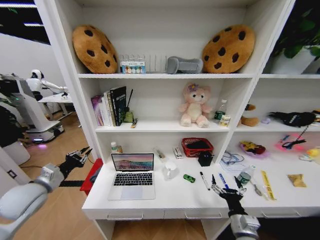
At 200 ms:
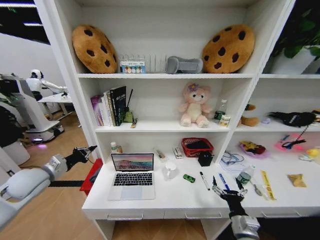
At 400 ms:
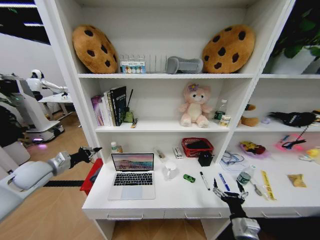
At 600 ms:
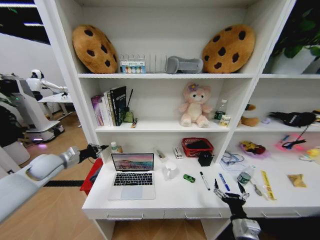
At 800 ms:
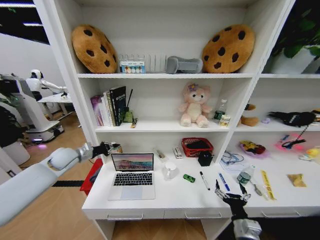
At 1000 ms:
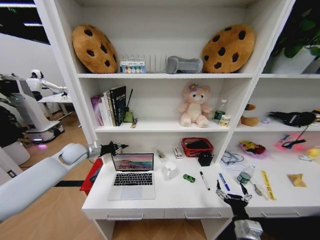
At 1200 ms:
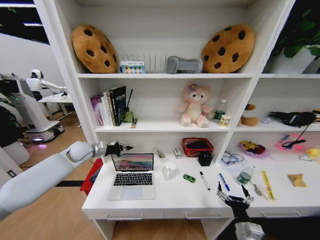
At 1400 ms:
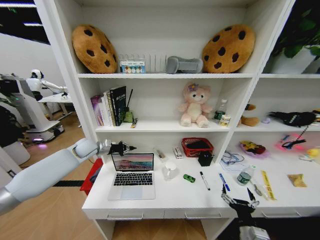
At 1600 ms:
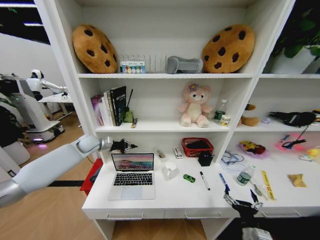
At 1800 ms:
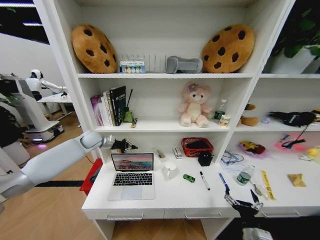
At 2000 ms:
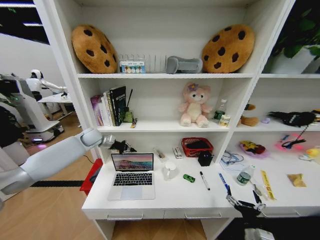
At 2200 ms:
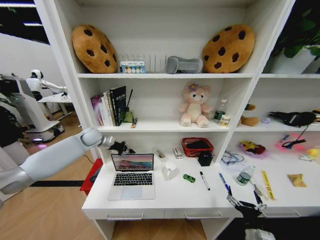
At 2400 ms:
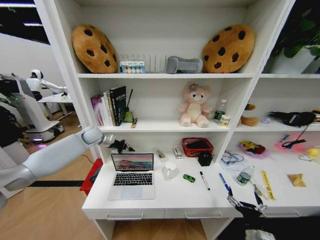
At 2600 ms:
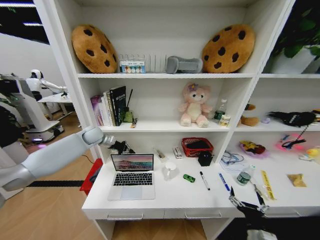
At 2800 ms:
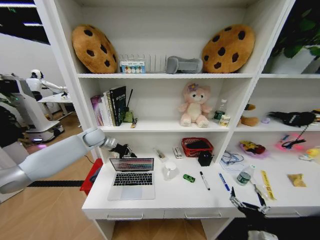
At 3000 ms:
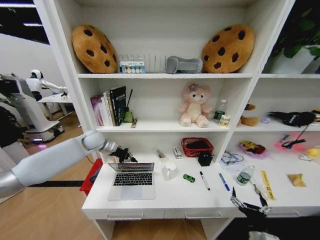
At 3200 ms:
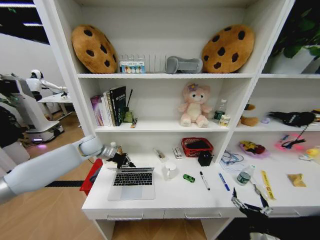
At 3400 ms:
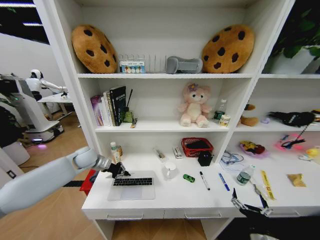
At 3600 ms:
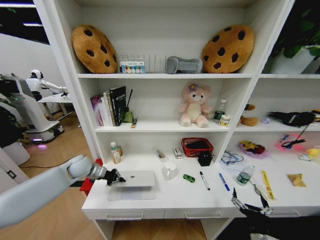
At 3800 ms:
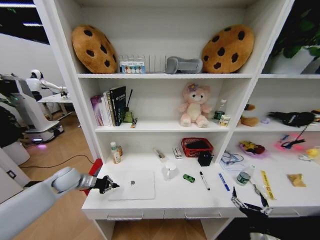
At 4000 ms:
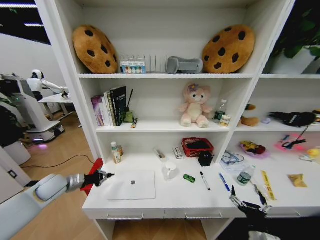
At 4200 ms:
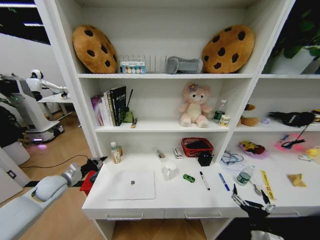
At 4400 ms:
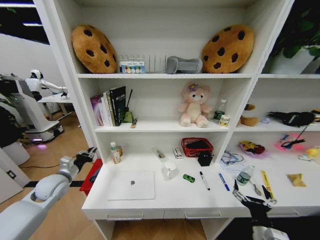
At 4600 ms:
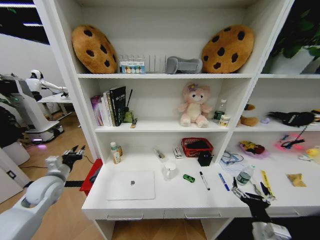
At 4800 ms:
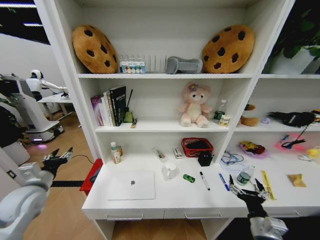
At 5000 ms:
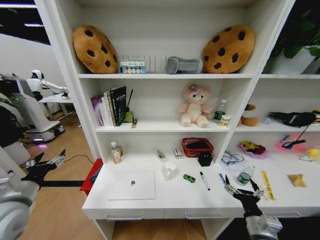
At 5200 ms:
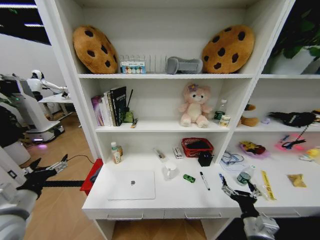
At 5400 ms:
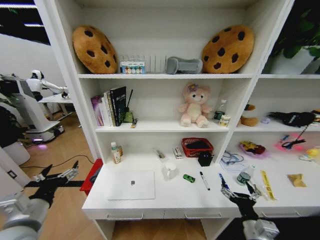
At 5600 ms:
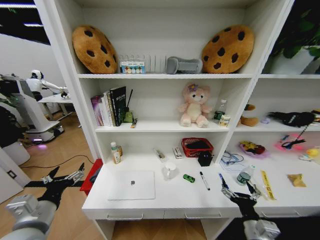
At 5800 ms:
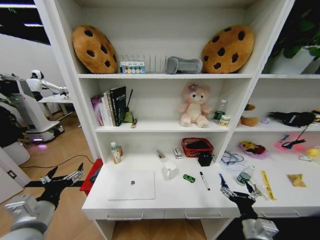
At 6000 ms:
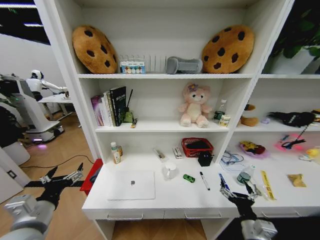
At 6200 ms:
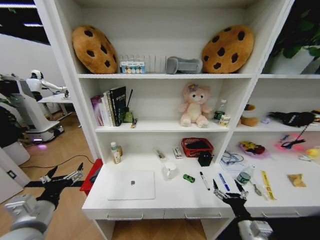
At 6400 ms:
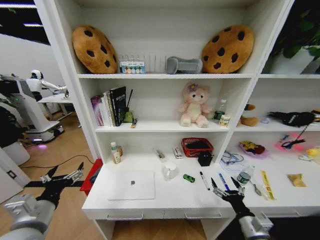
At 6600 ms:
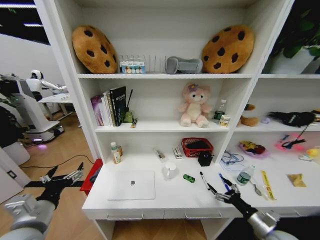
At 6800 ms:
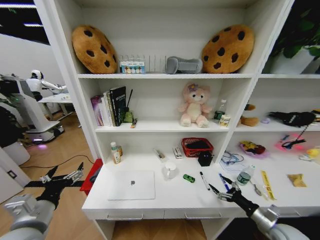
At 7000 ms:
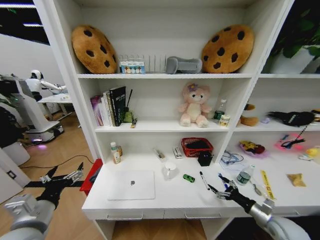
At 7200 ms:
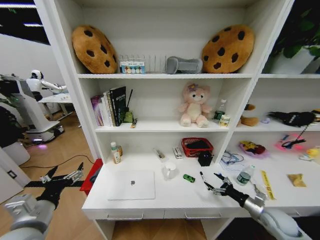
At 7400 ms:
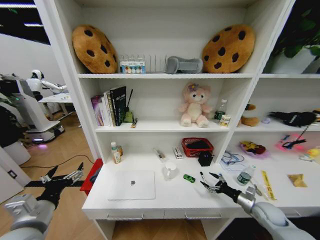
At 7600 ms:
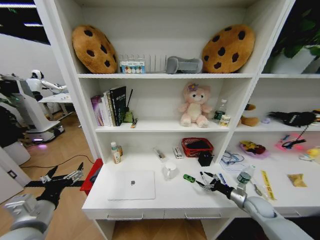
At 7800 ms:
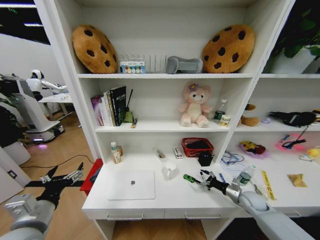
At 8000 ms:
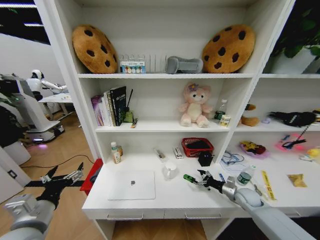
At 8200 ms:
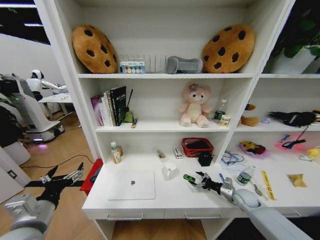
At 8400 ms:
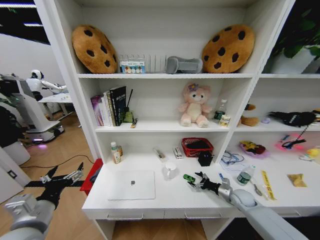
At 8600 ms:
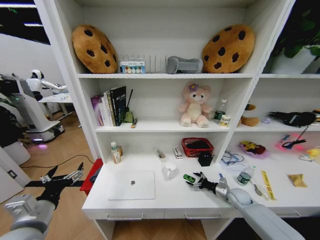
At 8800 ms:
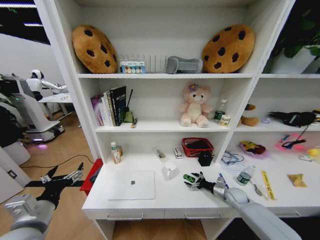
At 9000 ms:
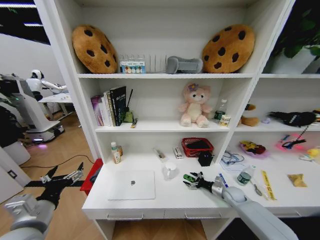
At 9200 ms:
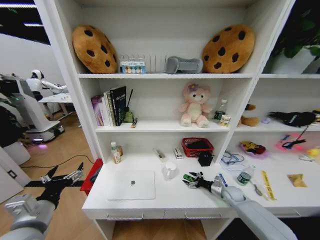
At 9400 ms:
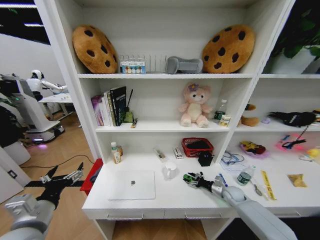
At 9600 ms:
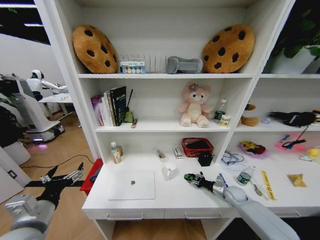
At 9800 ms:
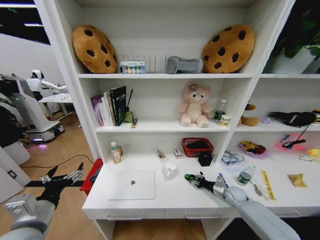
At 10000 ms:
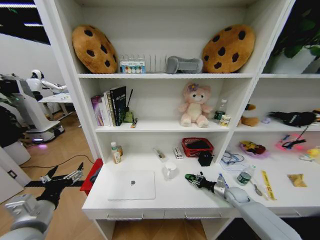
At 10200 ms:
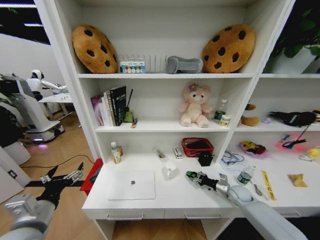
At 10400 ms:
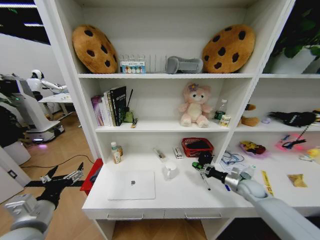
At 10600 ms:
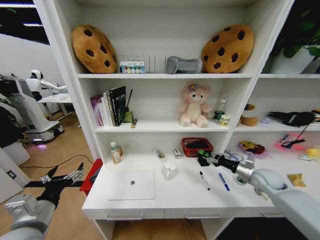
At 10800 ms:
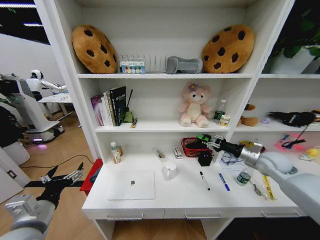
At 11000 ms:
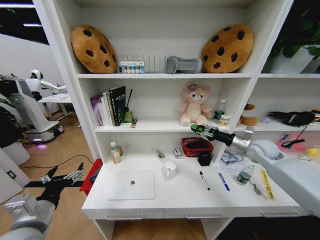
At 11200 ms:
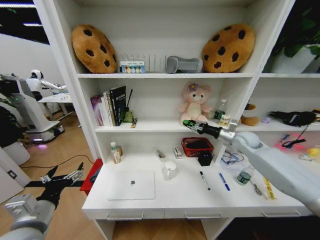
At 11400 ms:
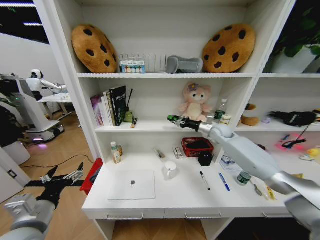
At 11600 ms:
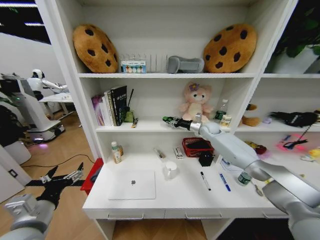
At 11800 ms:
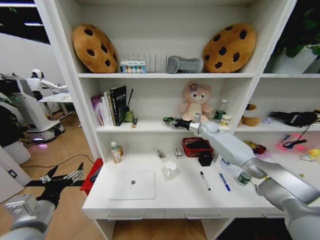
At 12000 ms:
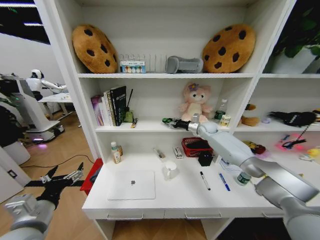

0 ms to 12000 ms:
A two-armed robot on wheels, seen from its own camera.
Task of the whole recording: Organize the objects on the table.
0 ms to 1600 ms: The right gripper shifts by about 5 cm; the left gripper heads forward, covering about 25 cm.
3000 ms to 4400 ms: The left gripper moves backward, to the left and downward, approximately 25 cm.
4400 ms to 6000 ms: The left gripper shifts about 20 cm backward and to the right, and opens its fingers.
6000 ms to 7600 ms: The right gripper travels forward, to the right and downward by roughly 25 cm.
7600 ms to 9000 ms: The right gripper heads forward, covering some 5 cm.
9000 ms to 10400 ms: The right gripper moves upward, approximately 10 cm, and closes up.
10400 ms to 12000 ms: The right gripper shifts approximately 35 cm forward, upward and to the left.

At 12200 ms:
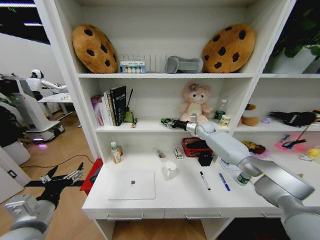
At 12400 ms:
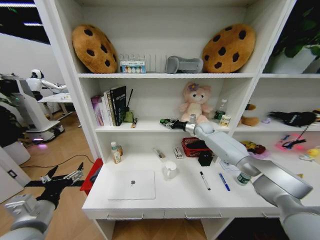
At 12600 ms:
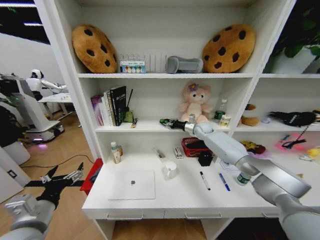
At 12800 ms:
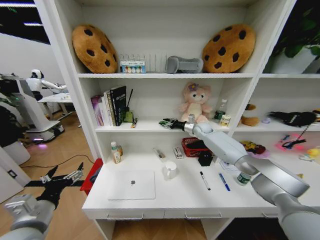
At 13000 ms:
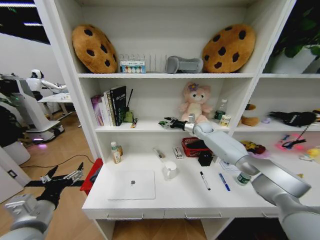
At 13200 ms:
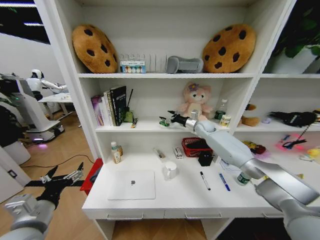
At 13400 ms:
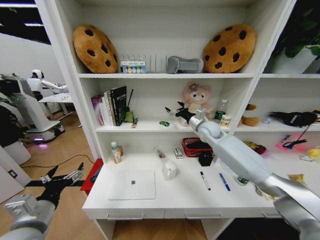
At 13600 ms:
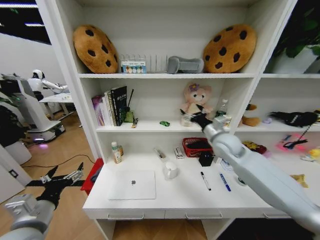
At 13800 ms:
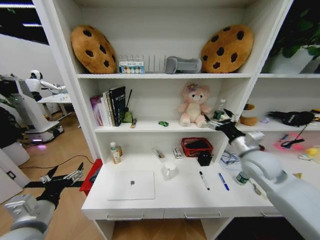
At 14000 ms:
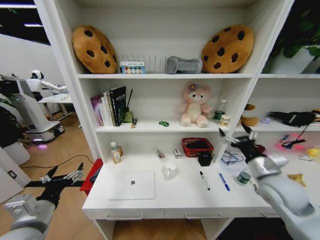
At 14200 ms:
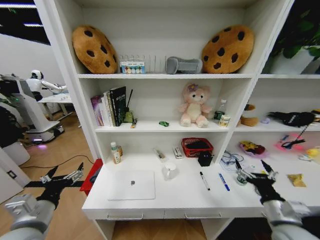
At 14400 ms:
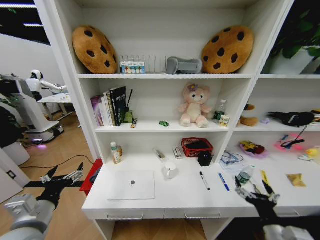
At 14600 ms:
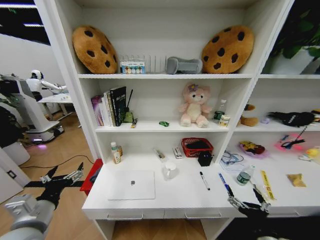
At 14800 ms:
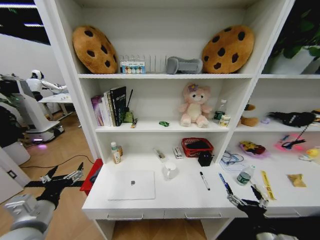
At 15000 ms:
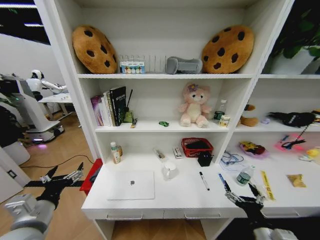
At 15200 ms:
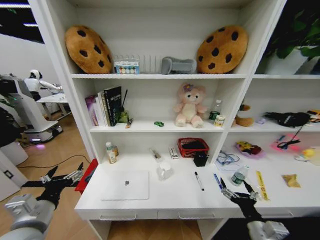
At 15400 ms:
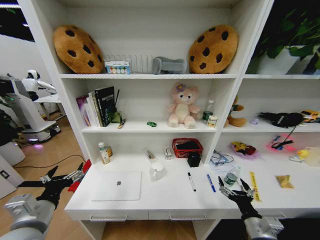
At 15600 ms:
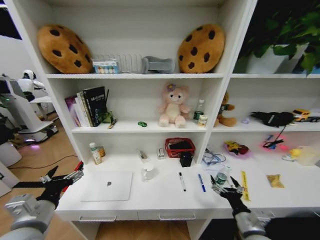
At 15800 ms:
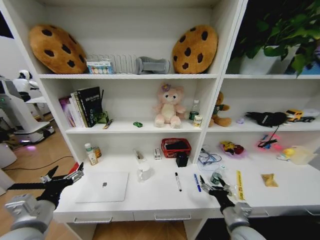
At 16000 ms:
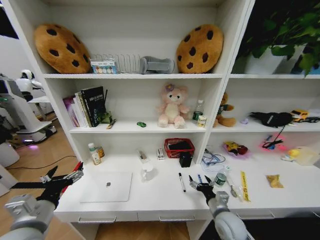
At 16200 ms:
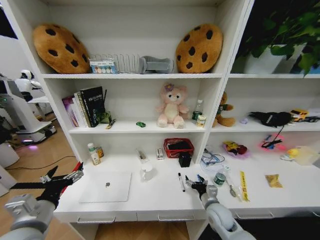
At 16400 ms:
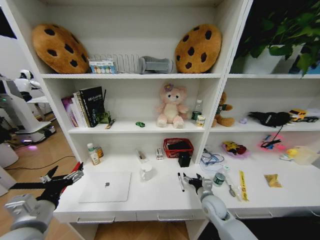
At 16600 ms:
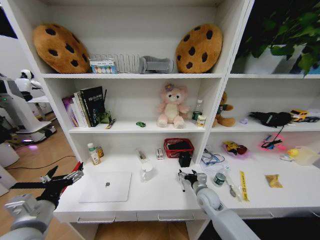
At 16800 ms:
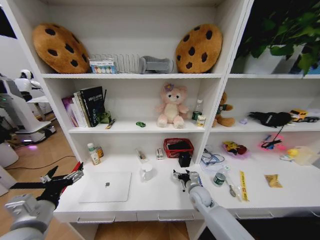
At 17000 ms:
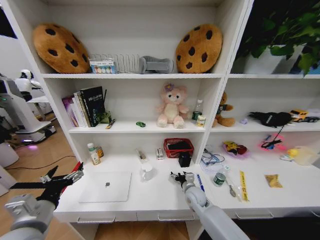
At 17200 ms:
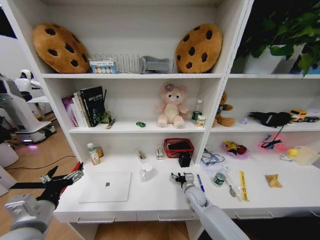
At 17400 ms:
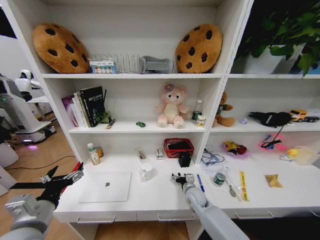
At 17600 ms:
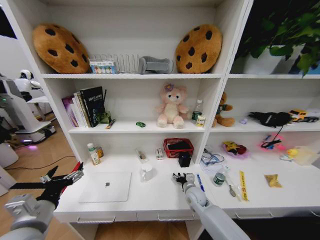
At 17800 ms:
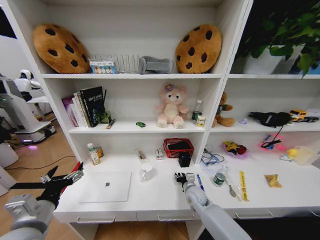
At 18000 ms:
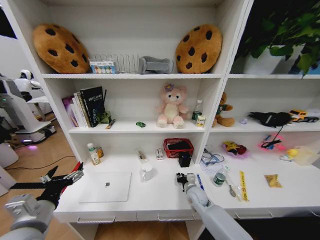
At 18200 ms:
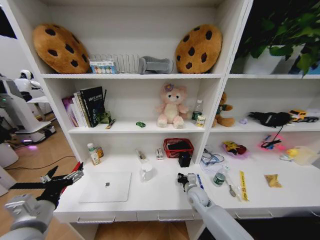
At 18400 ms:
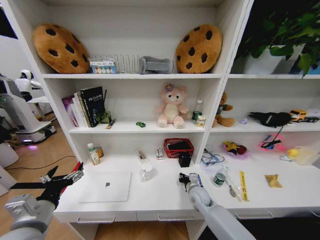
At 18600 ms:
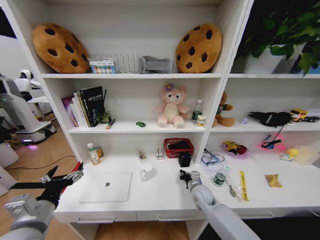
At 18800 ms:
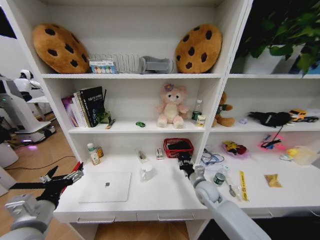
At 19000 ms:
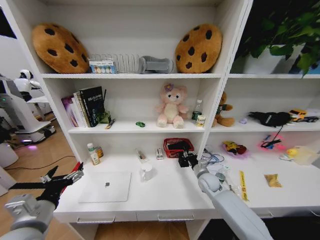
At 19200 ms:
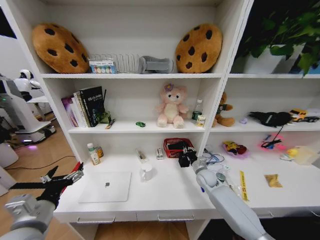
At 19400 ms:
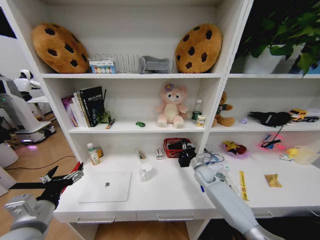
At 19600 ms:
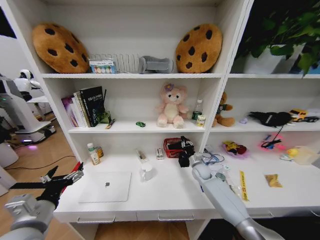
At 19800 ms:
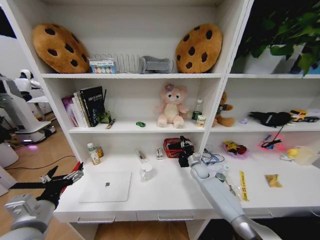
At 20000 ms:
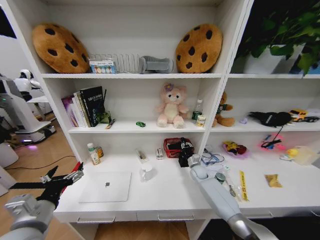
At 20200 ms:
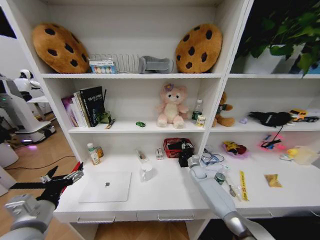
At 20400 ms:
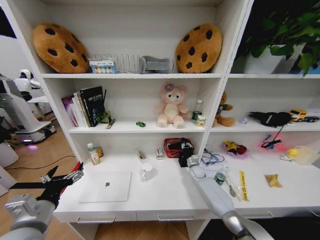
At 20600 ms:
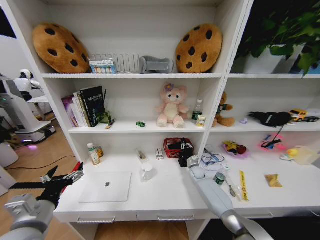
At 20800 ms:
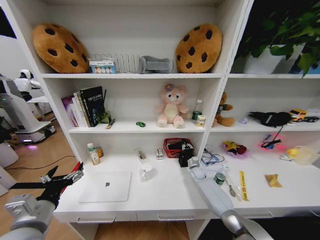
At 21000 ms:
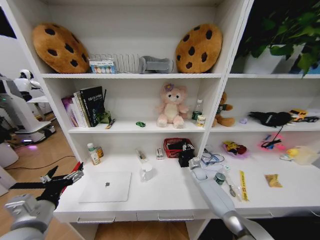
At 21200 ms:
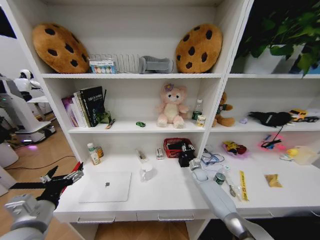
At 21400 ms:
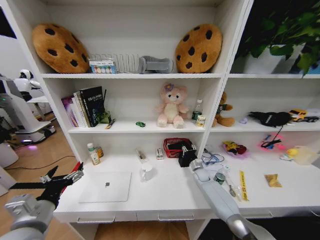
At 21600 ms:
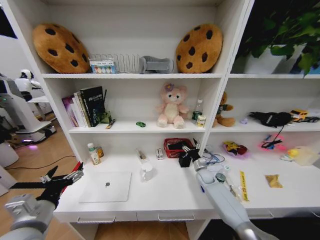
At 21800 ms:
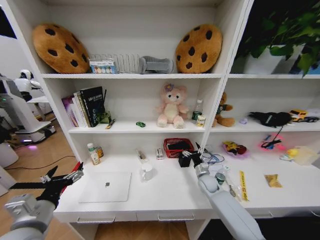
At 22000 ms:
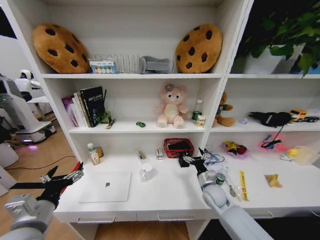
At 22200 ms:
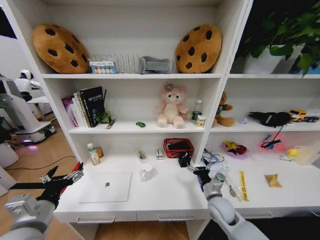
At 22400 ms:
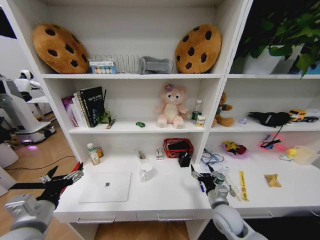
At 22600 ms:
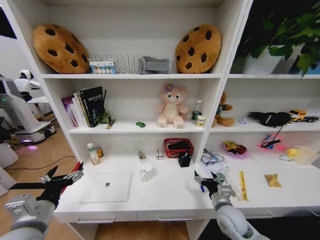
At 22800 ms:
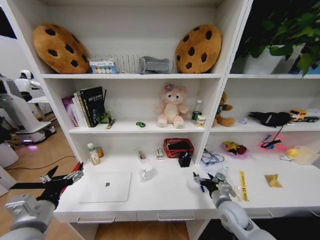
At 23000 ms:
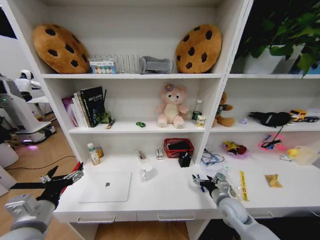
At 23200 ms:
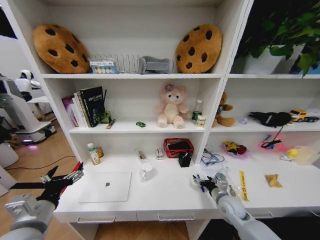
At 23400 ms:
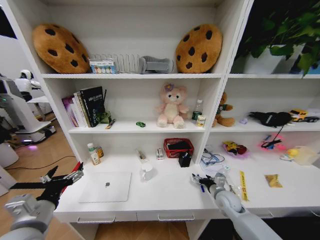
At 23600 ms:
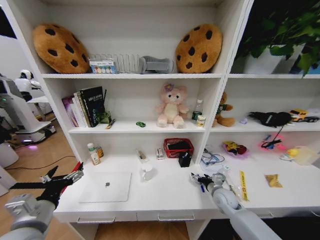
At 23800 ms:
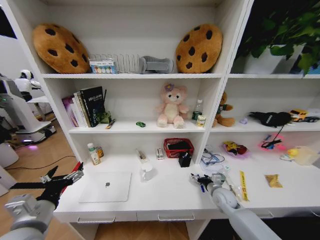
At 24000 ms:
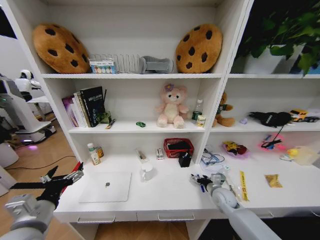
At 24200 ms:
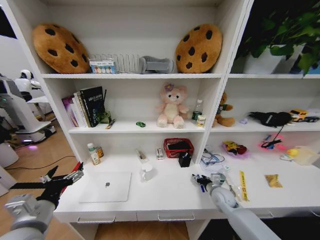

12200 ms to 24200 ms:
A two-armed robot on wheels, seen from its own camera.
Task of the whole recording: Organize the objects on the table.
12200 ms to 13800 ms: The right gripper shifts roughly 25 cm backward, and opens its fingers.
13800 ms to 15200 ms: The right gripper moves backward and downward, roughly 30 cm.
15200 ms to 16600 ms: The right gripper shifts about 25 cm forward and to the left.
16600 ms to 18200 ms: The right gripper closes its fingers.
18200 ms to 19800 ms: The right gripper goes approximately 15 cm forward and to the right.
19800 ms to 21200 ms: The right gripper travels downward by roughly 5 cm.
21200 ms to 22600 ms: The right gripper travels backward and upward by roughly 25 cm, and opens its fingers.
22600 ms to 24200 ms: The right gripper moves forward, roughly 10 cm.
